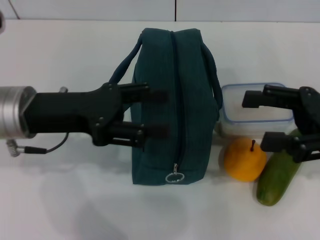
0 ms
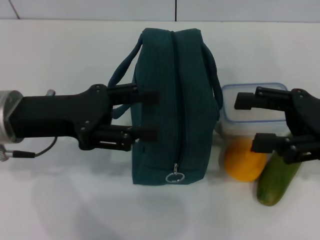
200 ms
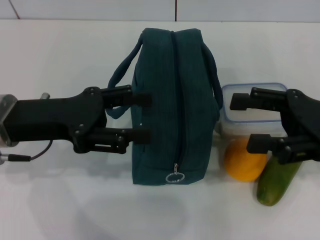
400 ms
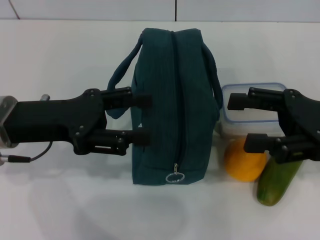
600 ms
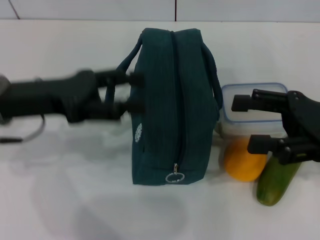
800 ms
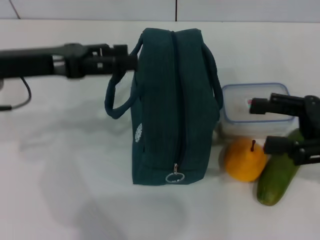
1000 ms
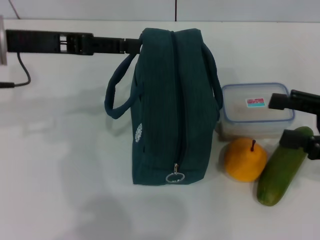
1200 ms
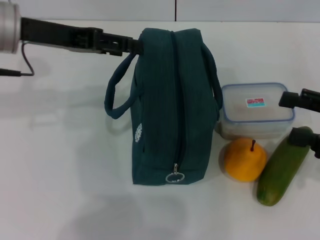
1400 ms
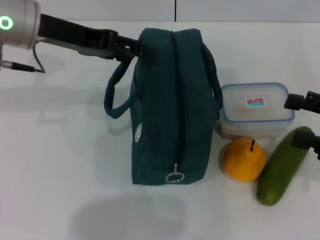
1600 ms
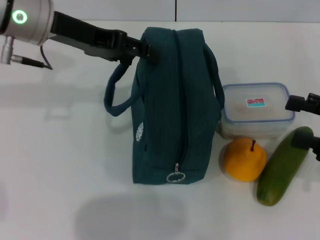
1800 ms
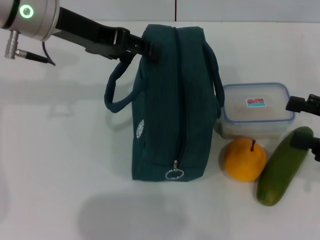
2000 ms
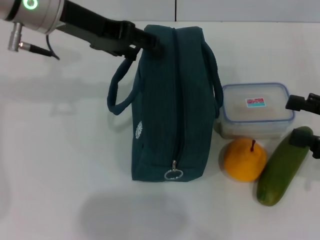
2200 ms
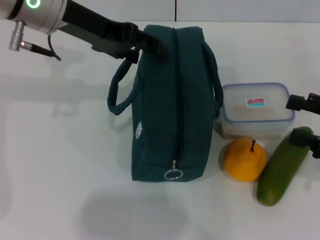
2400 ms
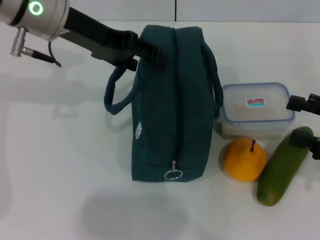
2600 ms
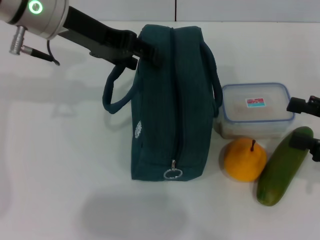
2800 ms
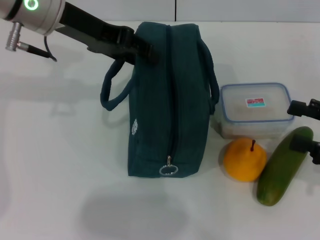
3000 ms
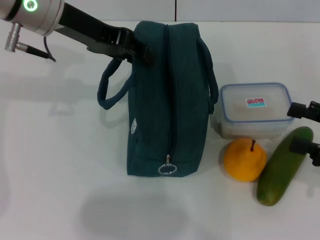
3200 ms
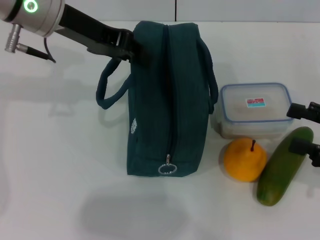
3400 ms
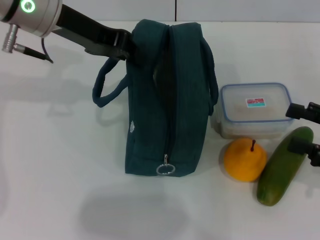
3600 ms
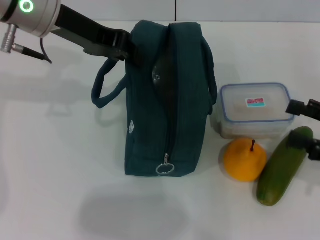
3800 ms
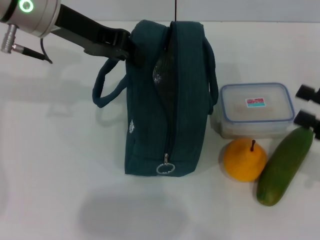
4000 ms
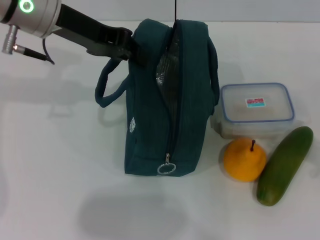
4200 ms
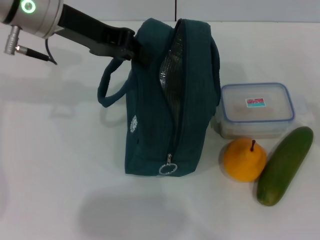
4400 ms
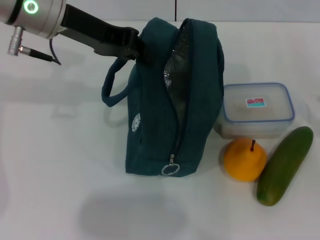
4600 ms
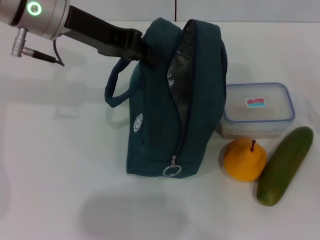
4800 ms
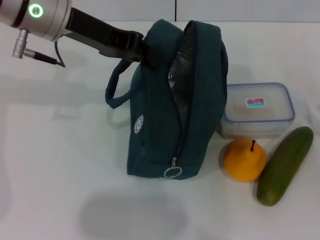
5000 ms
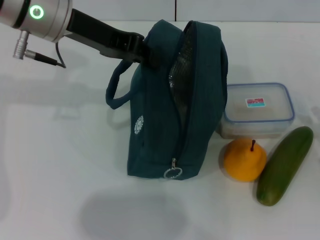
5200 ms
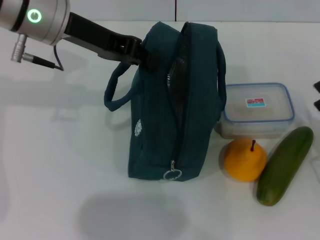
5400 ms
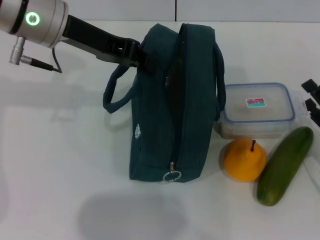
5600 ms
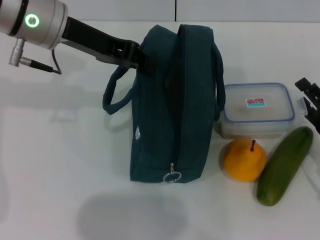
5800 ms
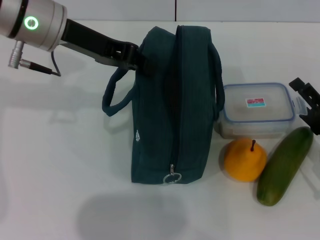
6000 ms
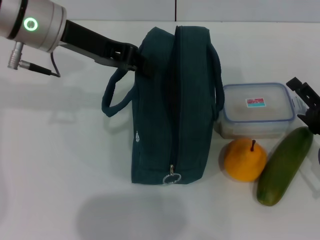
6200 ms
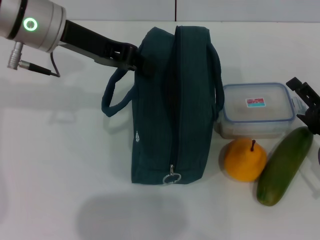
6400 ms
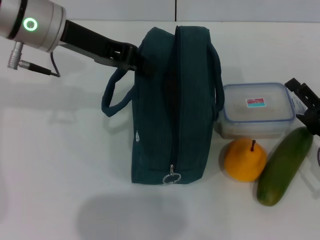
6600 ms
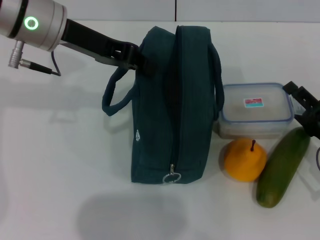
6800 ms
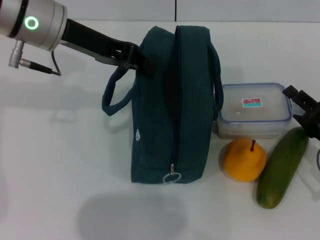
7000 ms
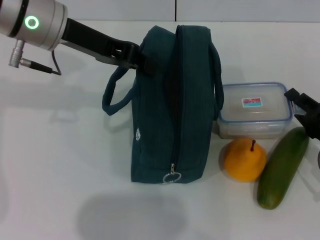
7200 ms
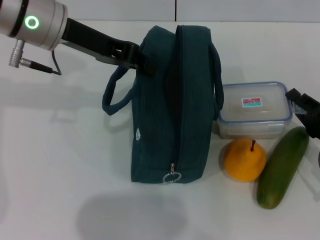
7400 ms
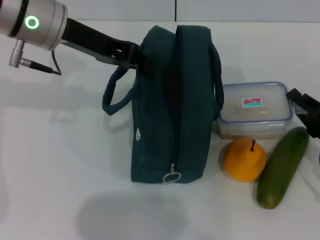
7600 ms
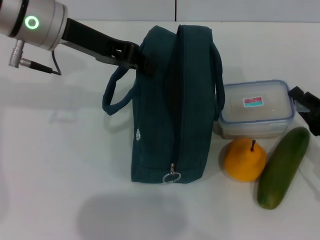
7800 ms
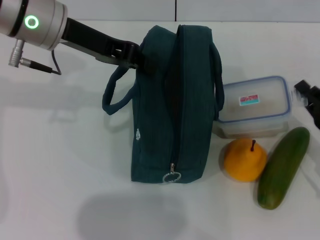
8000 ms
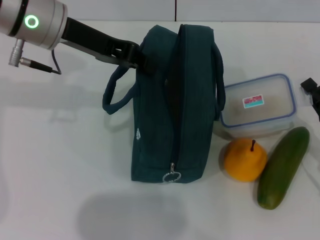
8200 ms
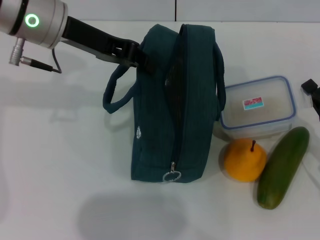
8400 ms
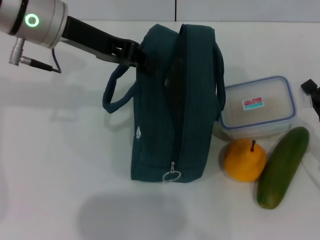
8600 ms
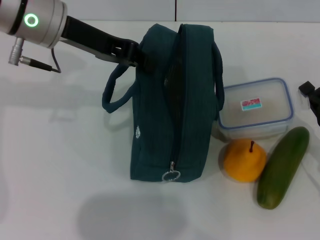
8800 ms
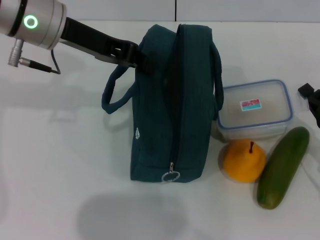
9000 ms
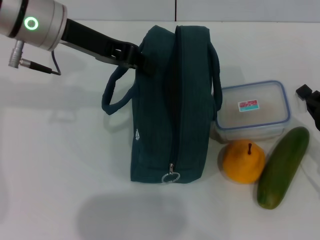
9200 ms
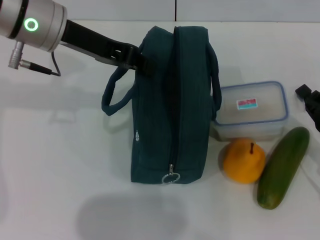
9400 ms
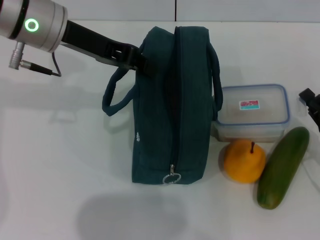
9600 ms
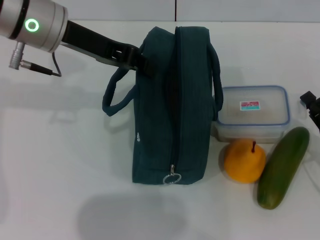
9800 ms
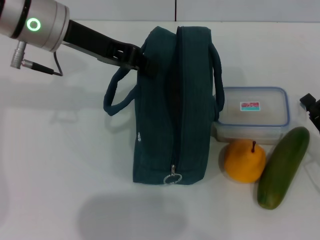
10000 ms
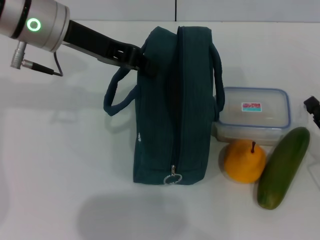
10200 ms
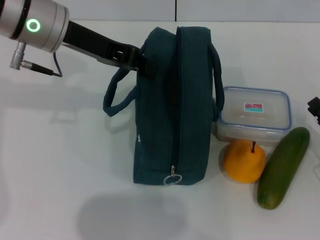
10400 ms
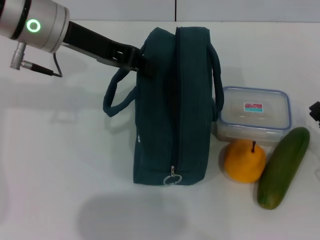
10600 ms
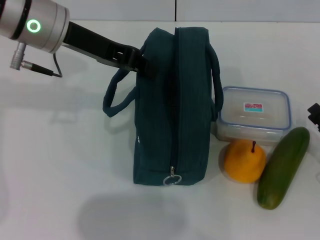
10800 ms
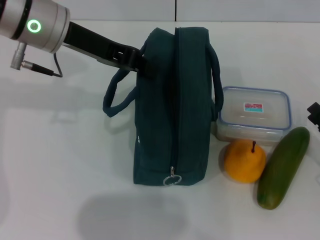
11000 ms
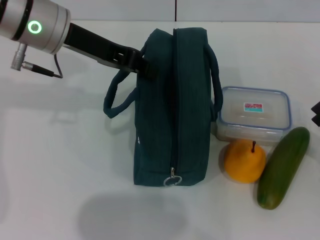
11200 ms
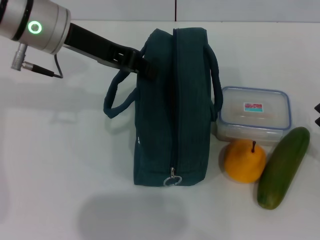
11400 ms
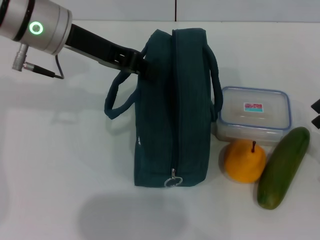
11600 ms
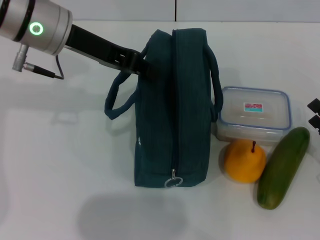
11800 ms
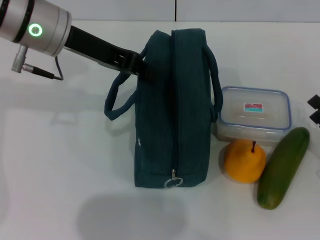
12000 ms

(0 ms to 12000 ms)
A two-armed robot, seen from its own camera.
Step, 0 ms - 5400 ms: Hold the lunch bag with your left hand.
0 ms - 1600 ms: The left gripper travels forward and upward by roughly 10 cm; the right gripper goes some 5 cm to the right.
1600 ms - 3000 ms: The grippers make only small movements.
3000 ms - 4400 ms: The left gripper closes.
4400 ms - 6000 ms: The right gripper travels downward and to the left by about 10 cm.
6000 ms - 7600 ms: The right gripper closes up.
7600 ms - 10400 ms: The grippers make only small movements.
10400 ms - 12000 ms: The right gripper opens.

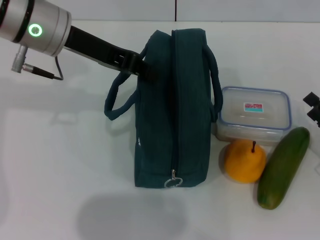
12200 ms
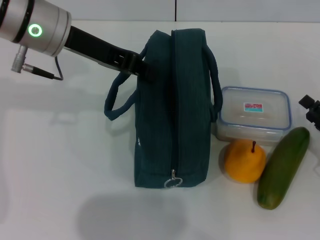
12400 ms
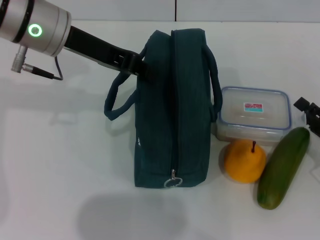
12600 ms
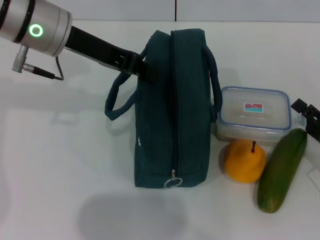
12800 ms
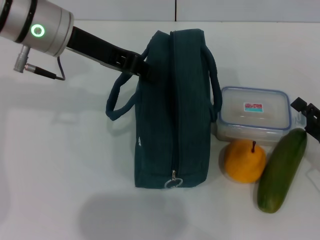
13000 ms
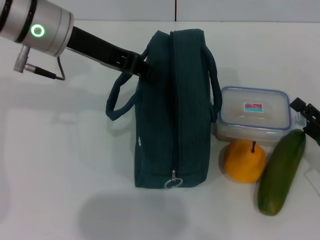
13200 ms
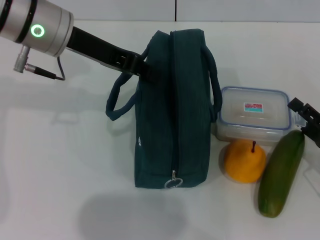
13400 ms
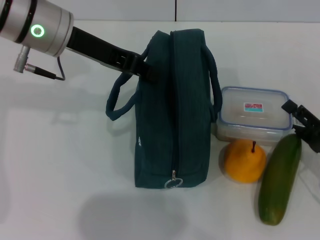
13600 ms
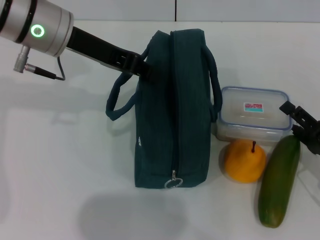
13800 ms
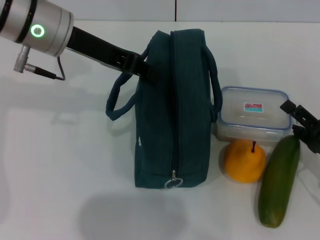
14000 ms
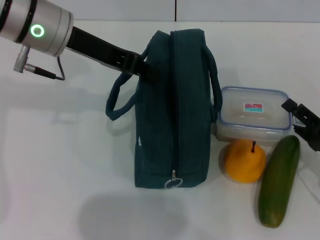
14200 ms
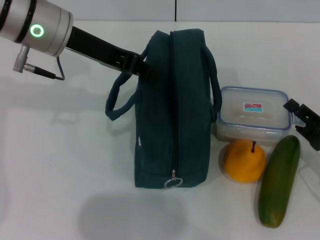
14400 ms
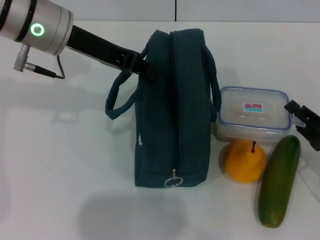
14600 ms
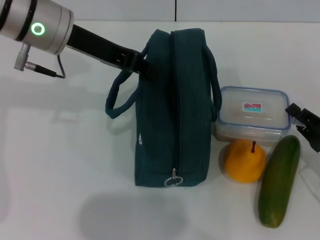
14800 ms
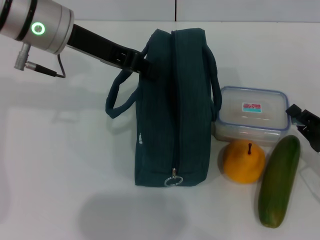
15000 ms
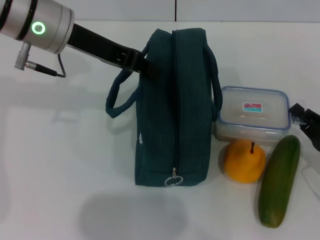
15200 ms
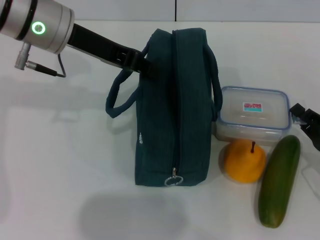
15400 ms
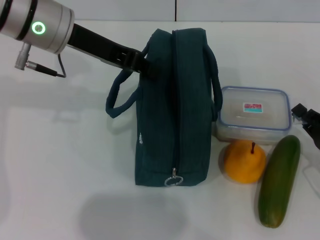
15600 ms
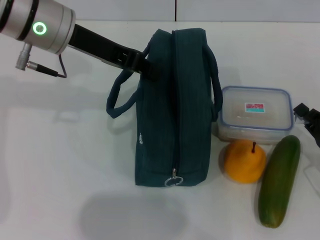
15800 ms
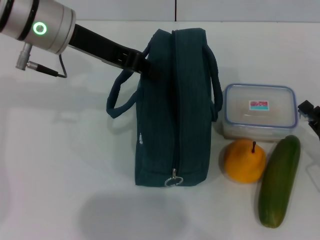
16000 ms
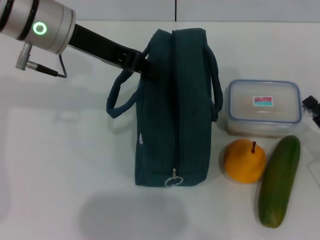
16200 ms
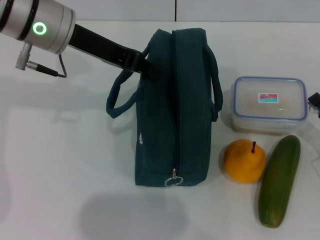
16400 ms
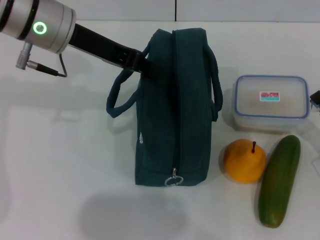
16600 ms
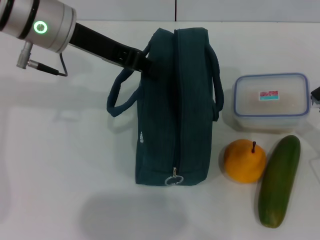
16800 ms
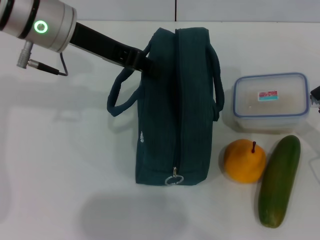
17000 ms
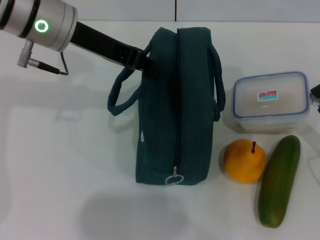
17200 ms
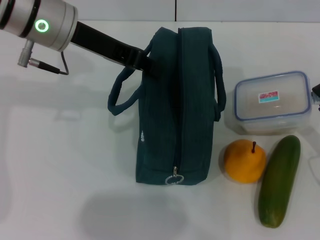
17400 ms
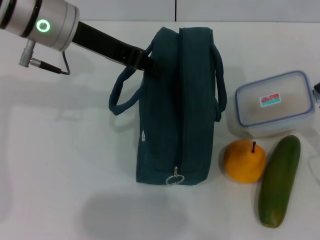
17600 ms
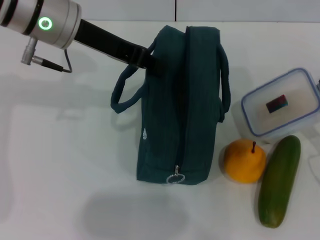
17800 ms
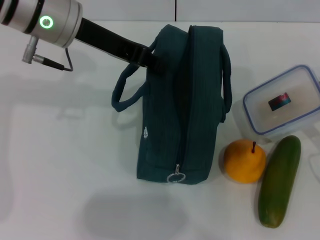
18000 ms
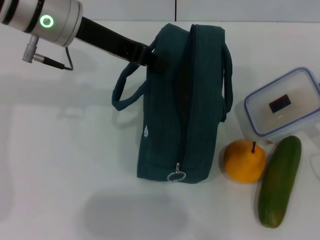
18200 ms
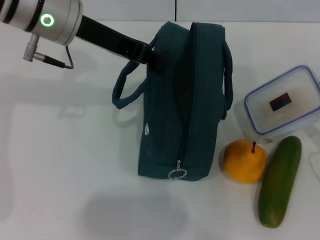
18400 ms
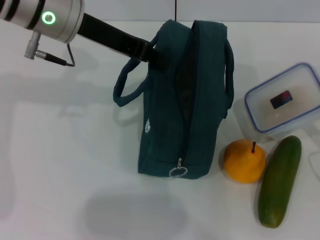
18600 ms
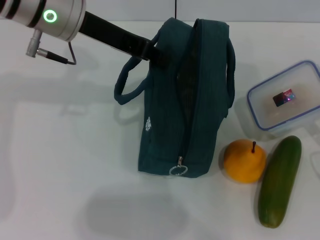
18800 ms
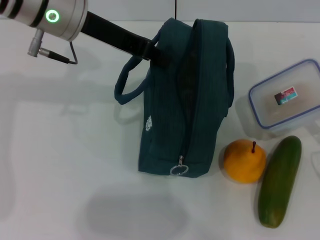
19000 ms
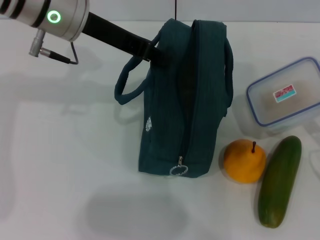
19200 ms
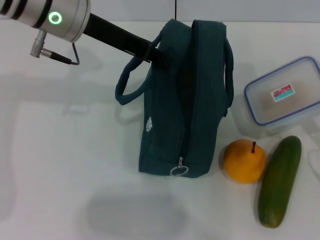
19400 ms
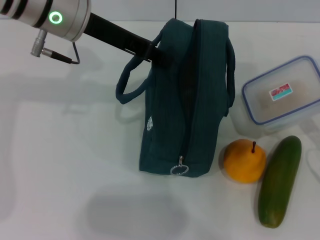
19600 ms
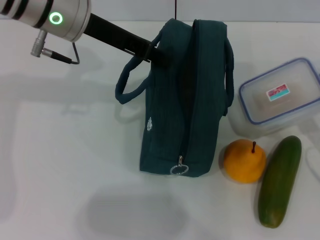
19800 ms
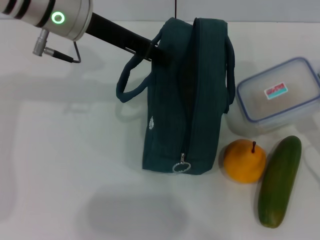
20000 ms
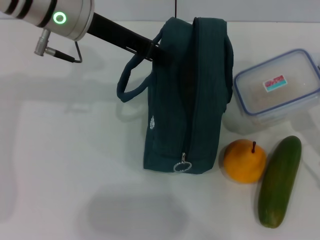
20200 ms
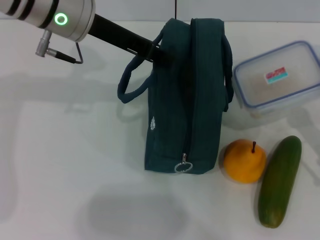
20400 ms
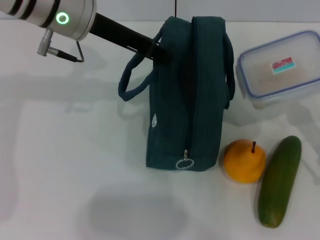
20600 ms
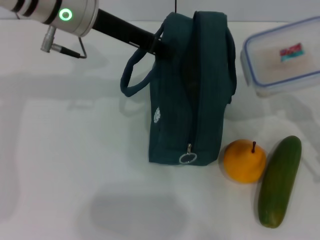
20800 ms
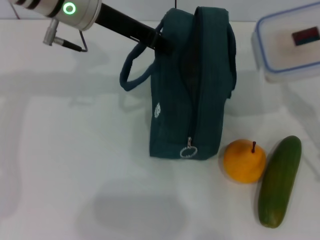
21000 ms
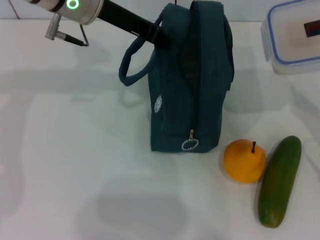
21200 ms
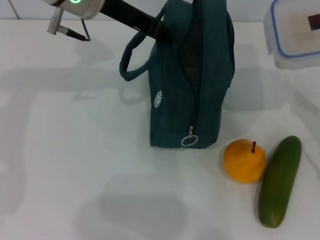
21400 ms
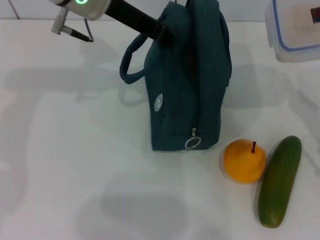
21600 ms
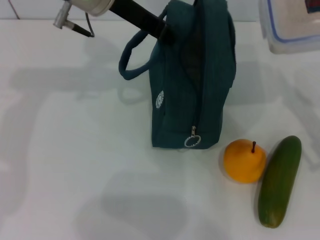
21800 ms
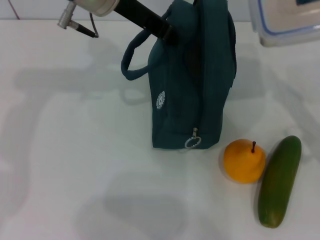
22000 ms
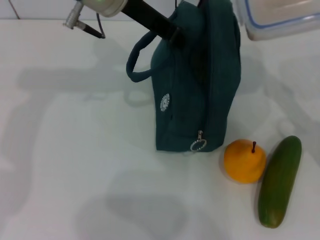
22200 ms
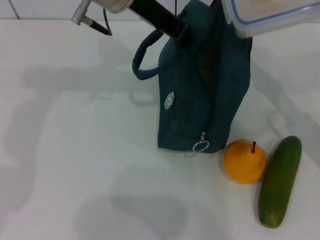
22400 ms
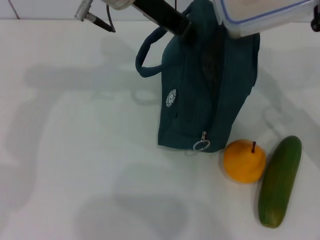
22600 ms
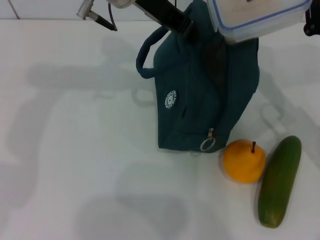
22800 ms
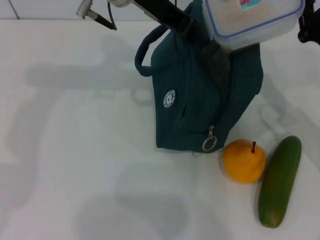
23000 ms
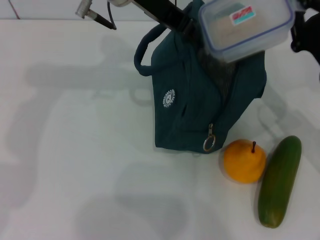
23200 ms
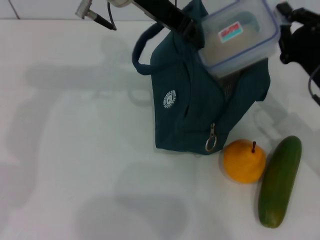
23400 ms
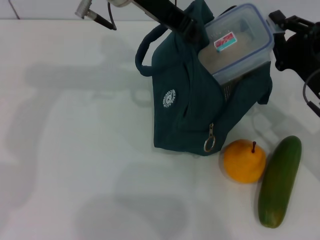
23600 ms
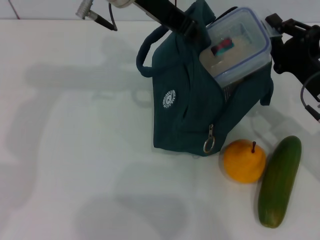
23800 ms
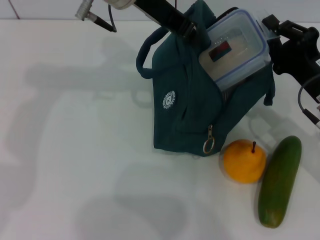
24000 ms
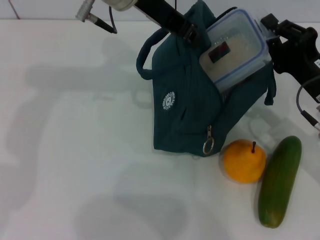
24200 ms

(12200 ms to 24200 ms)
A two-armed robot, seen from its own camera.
Step, 12200 ms - 16600 ms: Pick up the lunch box with your right hand.
12200 ms - 13800 ms: The grippers move only a little.
13800 ms - 15200 ms: The right gripper closes up.
15200 ms - 18200 ms: The grippers make only small movements.
18200 ms - 19800 ms: The grippers stay close to where they were, moving slightly.
21200 ms - 22600 ms: The right gripper shifts about 10 cm forward and to the left, while the left gripper shifts approximately 5 cm to the right.
